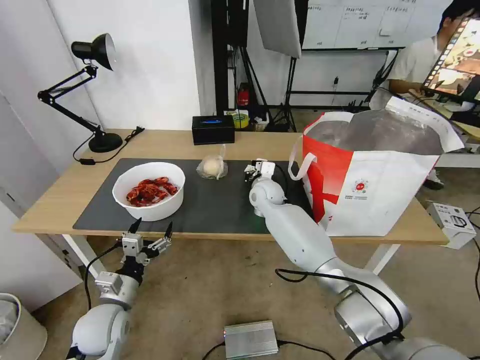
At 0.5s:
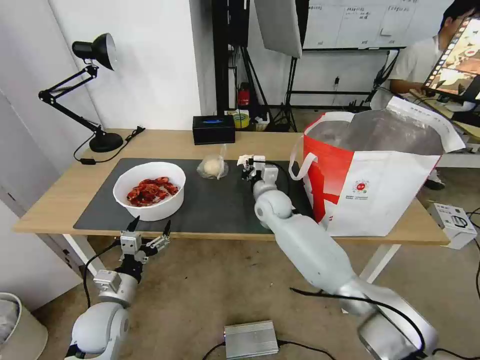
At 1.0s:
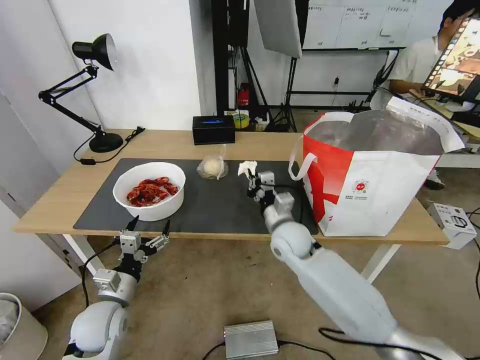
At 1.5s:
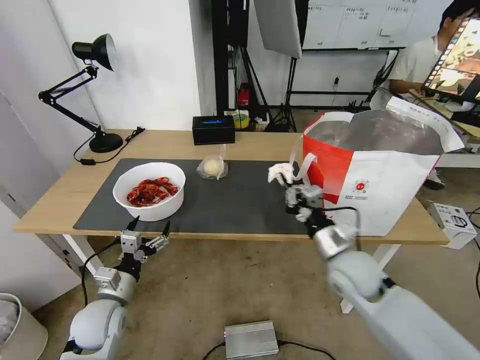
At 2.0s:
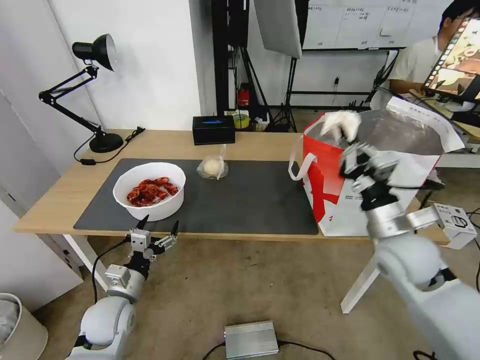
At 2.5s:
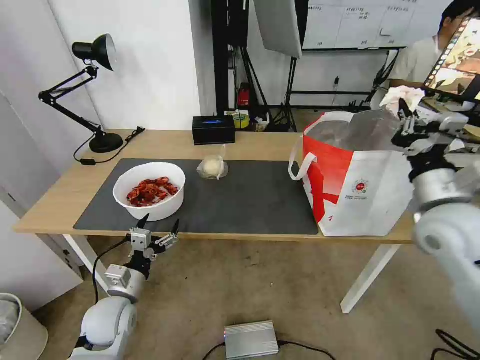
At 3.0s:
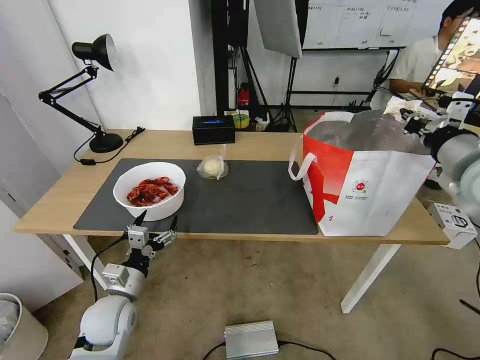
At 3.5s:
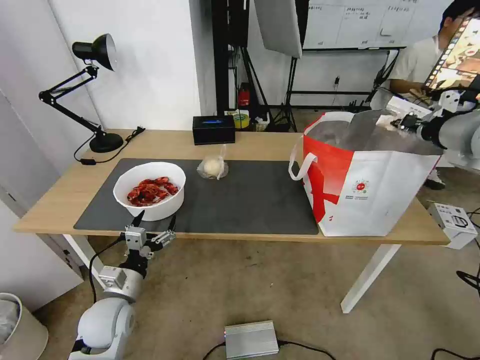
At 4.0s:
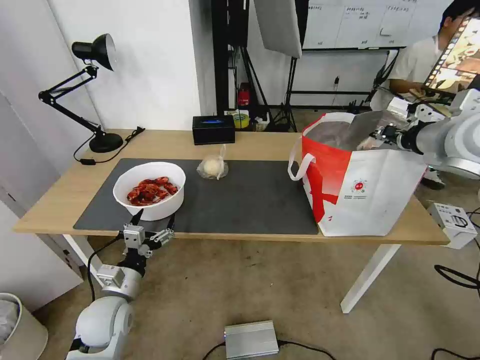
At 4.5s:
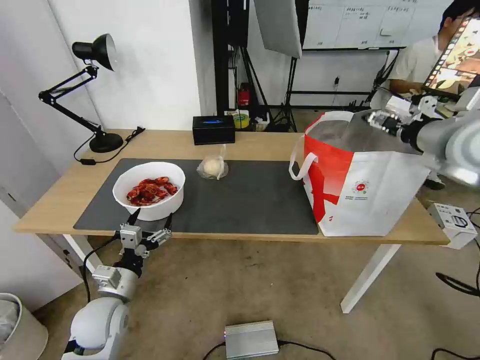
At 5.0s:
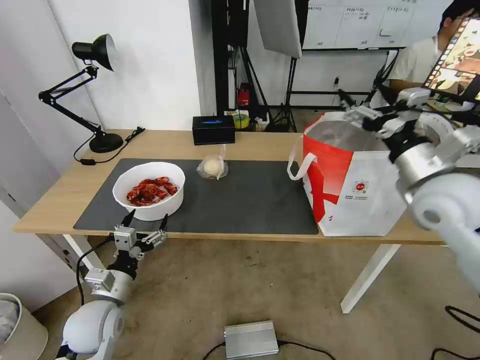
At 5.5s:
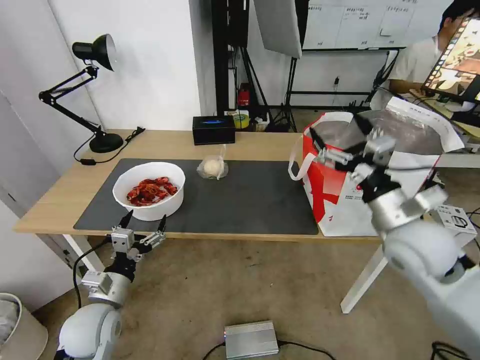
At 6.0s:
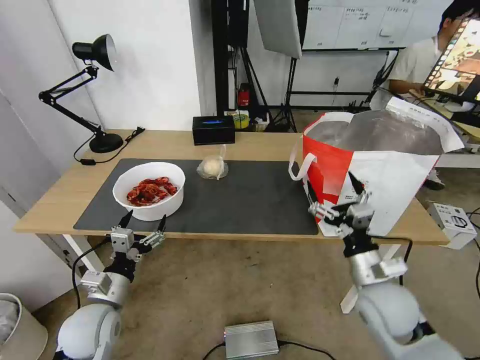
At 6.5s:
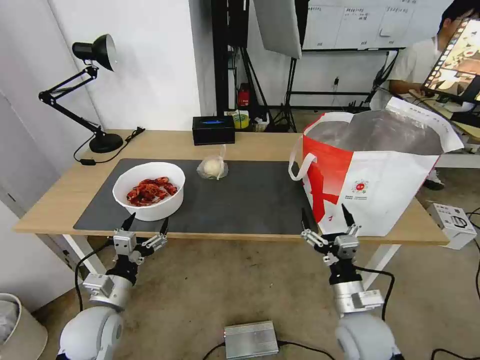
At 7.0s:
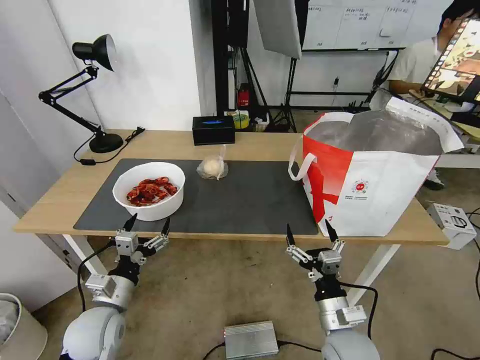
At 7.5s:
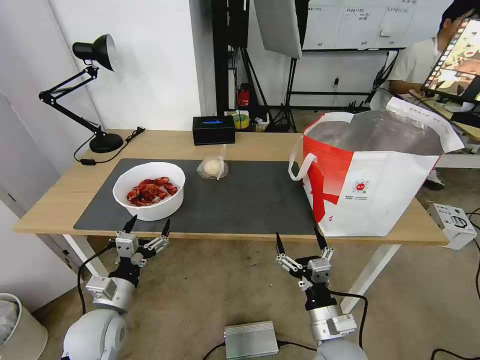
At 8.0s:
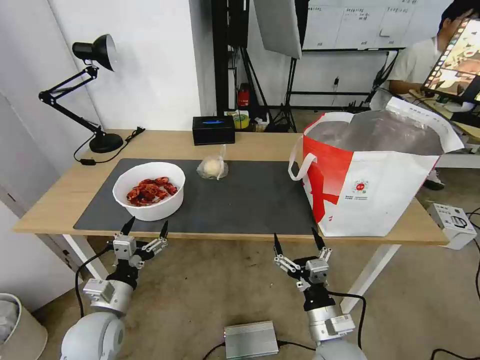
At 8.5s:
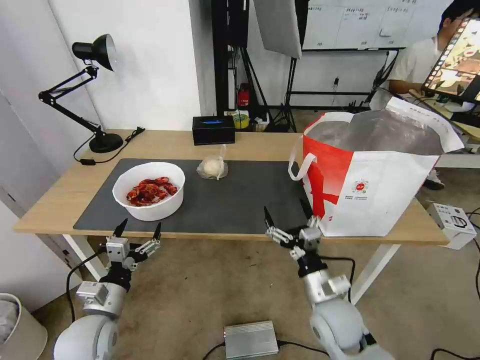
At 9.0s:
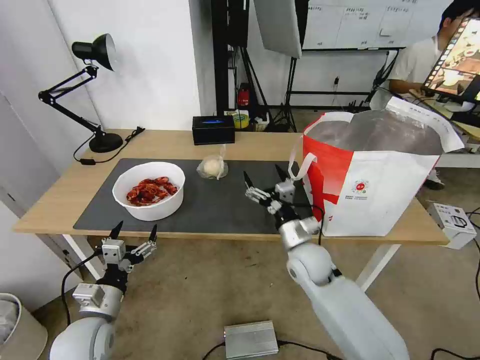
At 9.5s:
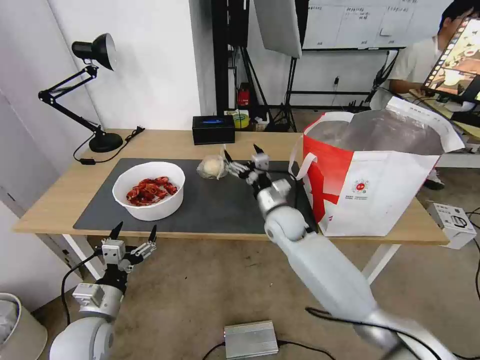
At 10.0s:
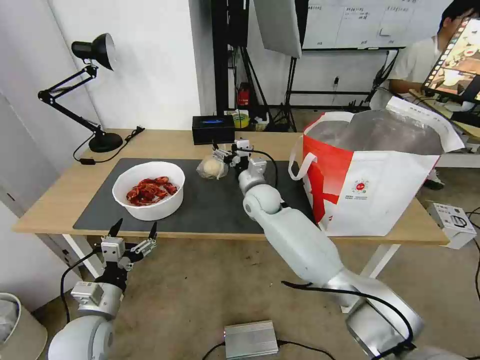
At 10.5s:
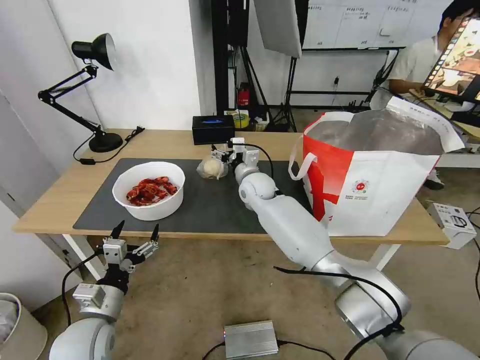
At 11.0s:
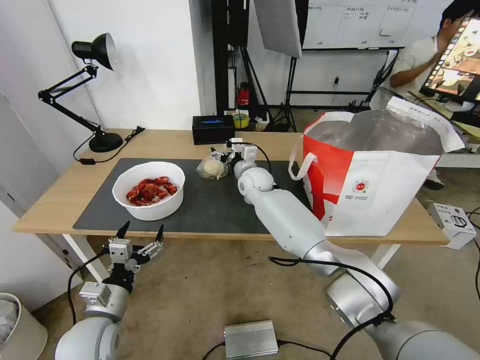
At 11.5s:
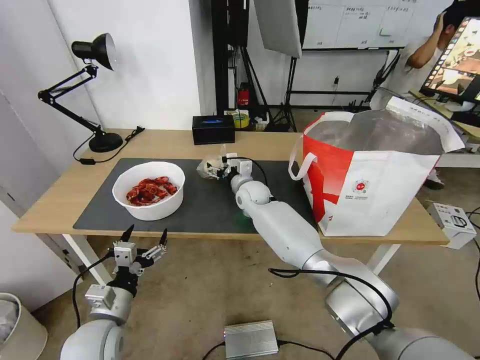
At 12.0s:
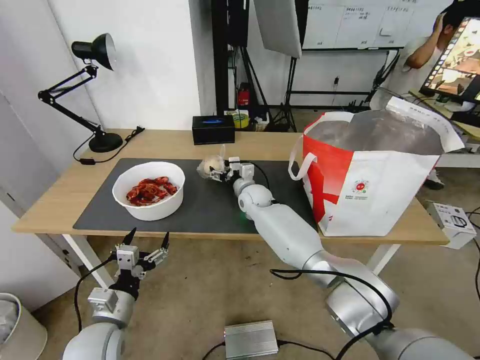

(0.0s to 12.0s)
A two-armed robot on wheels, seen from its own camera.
Task of the whole recording: Pick up the trash from the table and place it into the takeout bag.
0.0s - 2.0s: The right gripper shifts about 35 cm backward and to the right.
2.0s - 4.0s: The right gripper goes some 25 cm upward, forward and to the right.
4.0s - 6.0s: The right gripper shifts some 35 cm downward, backward and to the left, and opens up.
6.0s - 8.0s: The right gripper moves downward, to the left and backward, some 15 cm.
8.0s - 10.0s: The right gripper shifts approximately 35 cm forward.
10.0s - 12.0s: The right gripper ends up approximately 5 cm from where it was.

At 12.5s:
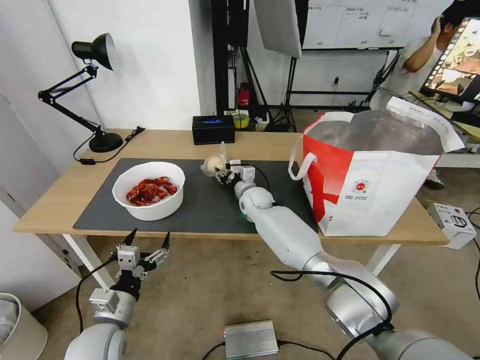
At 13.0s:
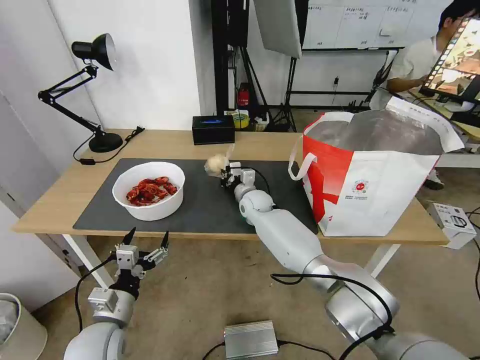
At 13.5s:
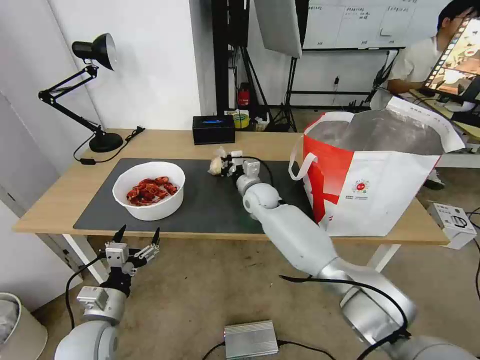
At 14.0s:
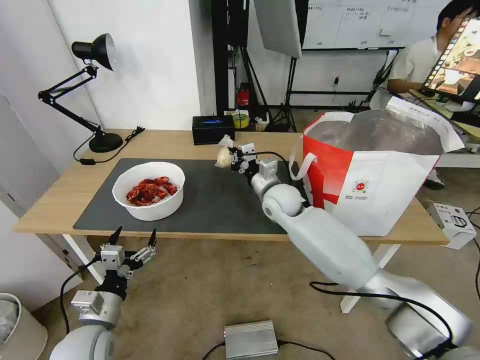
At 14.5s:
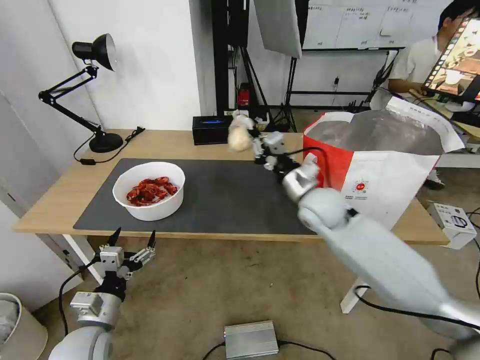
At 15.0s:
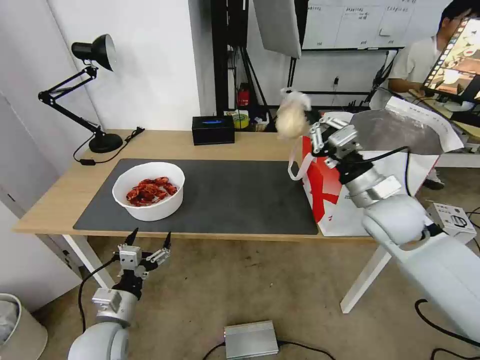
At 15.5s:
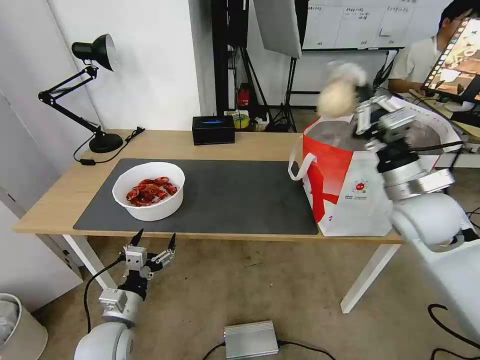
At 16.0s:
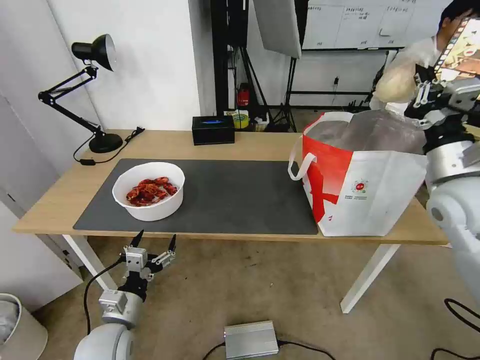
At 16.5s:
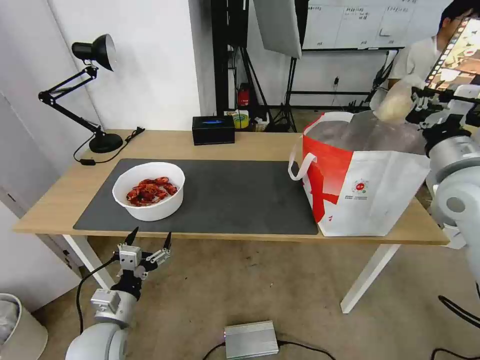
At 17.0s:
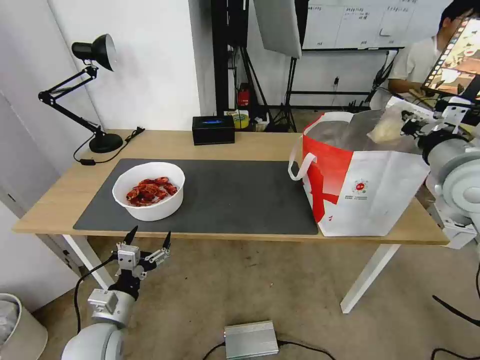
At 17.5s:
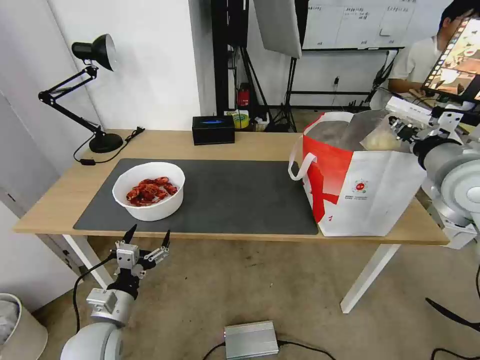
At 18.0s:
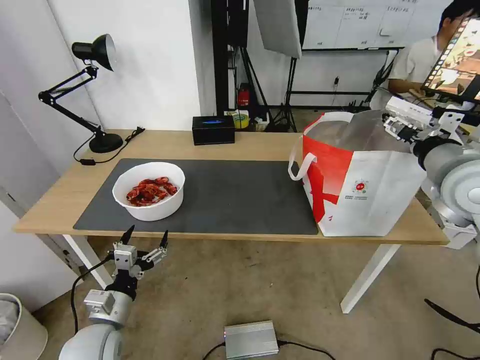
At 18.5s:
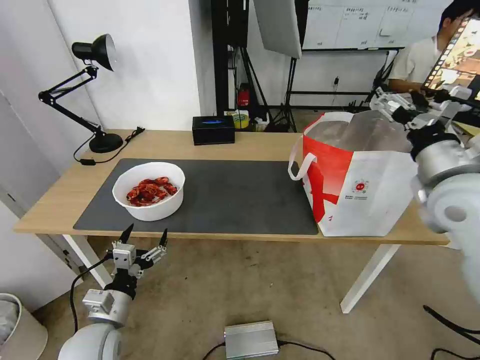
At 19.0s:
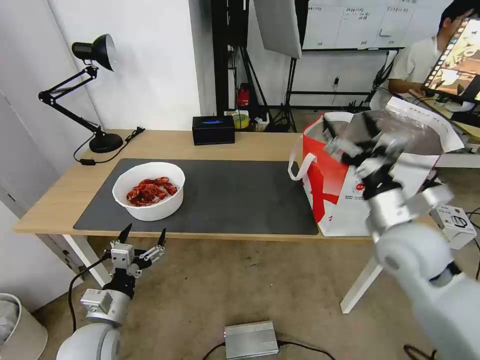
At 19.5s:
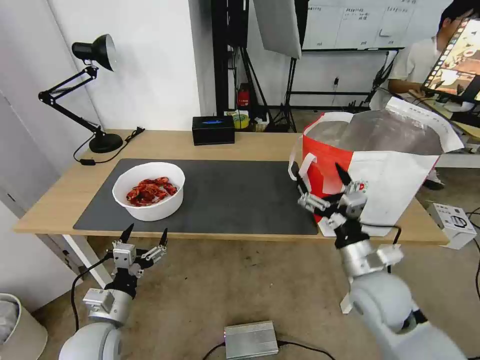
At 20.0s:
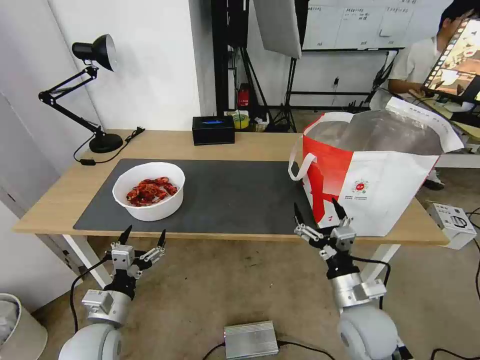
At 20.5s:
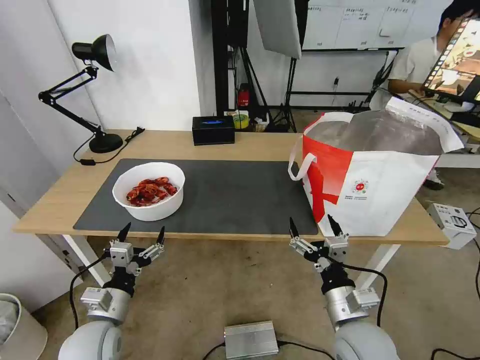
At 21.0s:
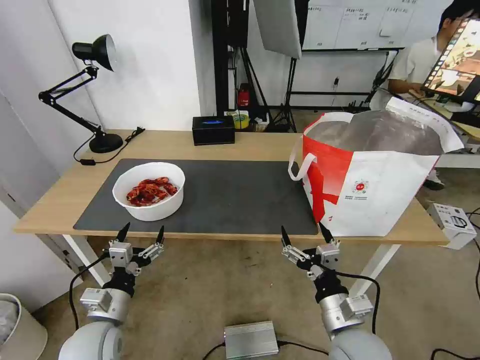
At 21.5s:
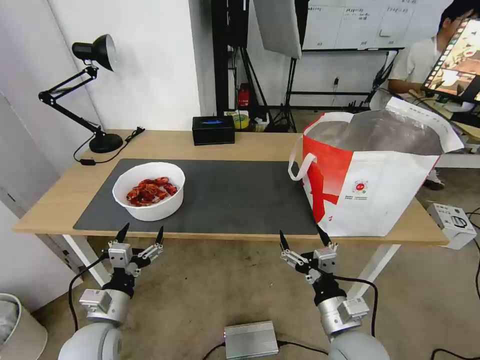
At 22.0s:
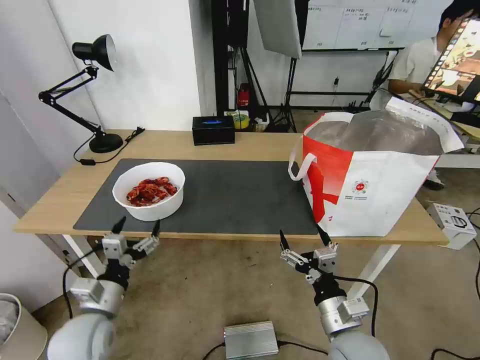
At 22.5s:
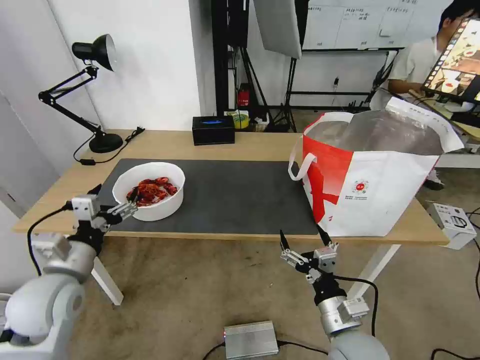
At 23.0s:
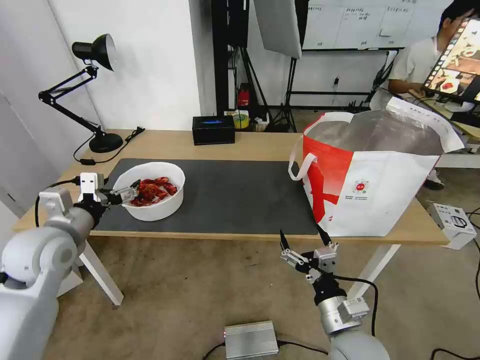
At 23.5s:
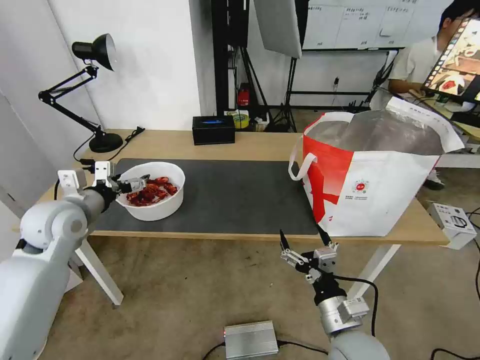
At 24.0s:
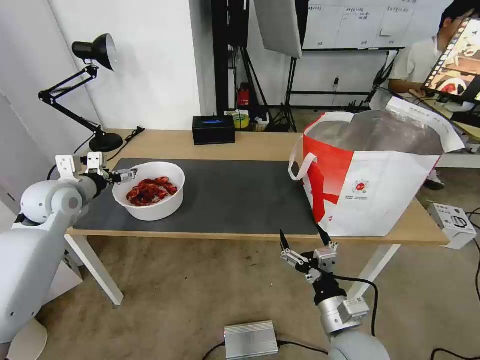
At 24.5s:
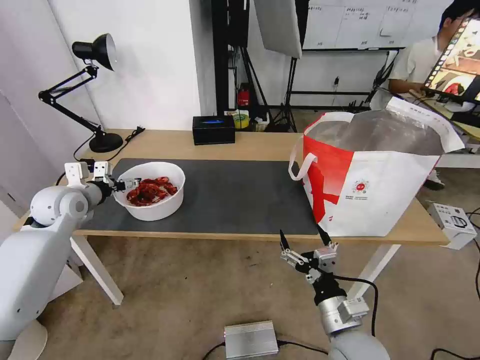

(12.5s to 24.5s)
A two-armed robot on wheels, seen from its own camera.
Task of the whole recording: Pick up the trash from the table and place it into the takeout bag.
12.5s - 14.5s: The right gripper heads backward, to the right and upward, covering about 20 cm, and closes.
14.5s - 16.5s: The right gripper shifts about 25 cm to the right, upward and backward.
16.5s - 18.5s: The right gripper opens its fingers.
18.5s - 20.5s: The right gripper heads downward, backward and to the left, covering some 30 cm.
20.5s - 22.5s: The left gripper shifts roughly 10 cm upward.
22.5s - 24.5s: The left gripper shifts some 20 cm forward.

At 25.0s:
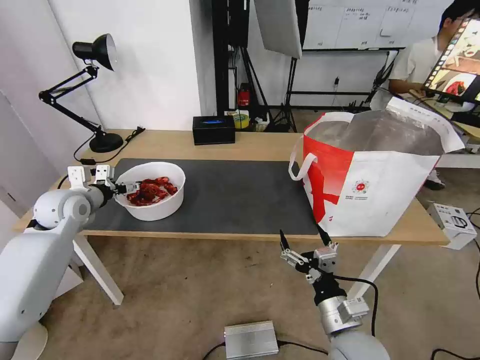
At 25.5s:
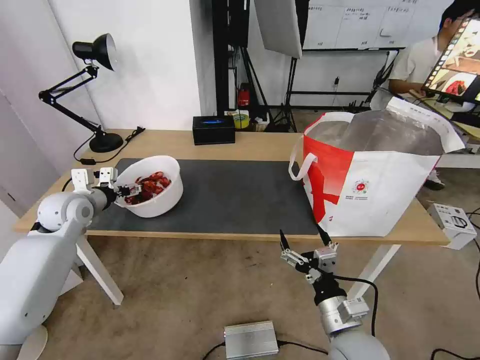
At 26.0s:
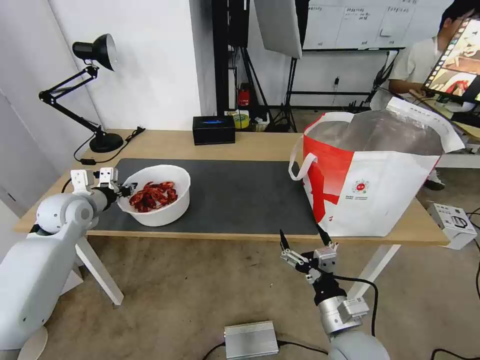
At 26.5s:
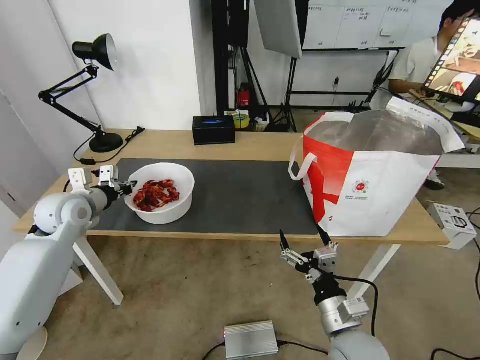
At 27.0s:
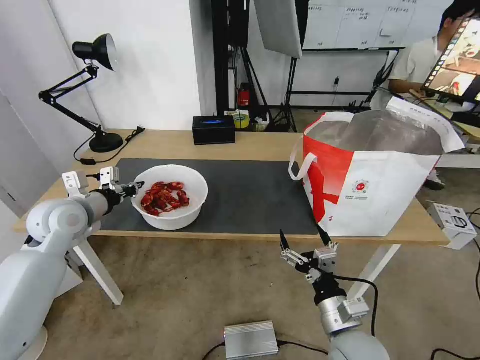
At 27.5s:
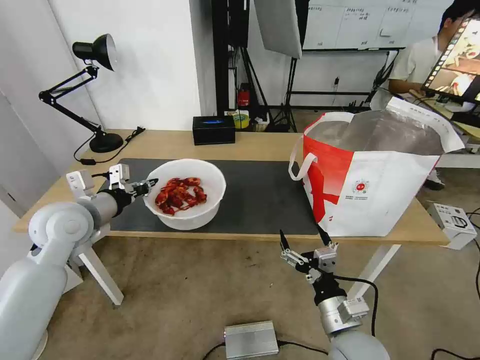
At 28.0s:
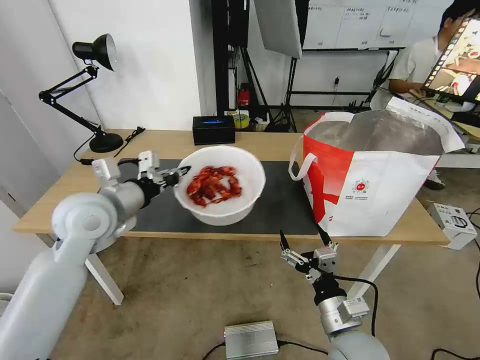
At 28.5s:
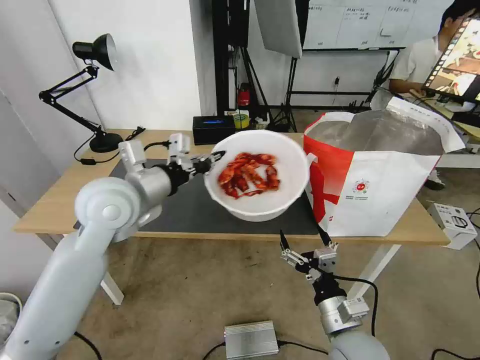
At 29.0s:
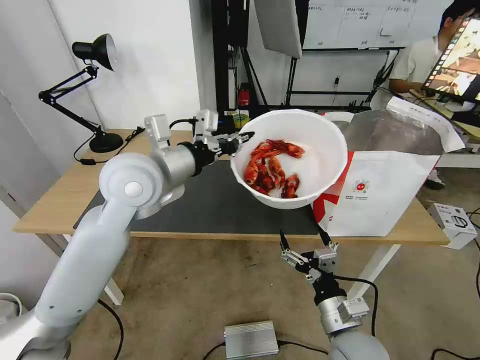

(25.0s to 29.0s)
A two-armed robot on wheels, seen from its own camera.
Task of the whole recording: Pick up the trash from the table and place it into the takeout bag.
25.0s - 27.0s: The left gripper moves some 5 cm, and closes.
27.0s - 29.0s: The left gripper goes roughly 25 cm to the right and upward.
